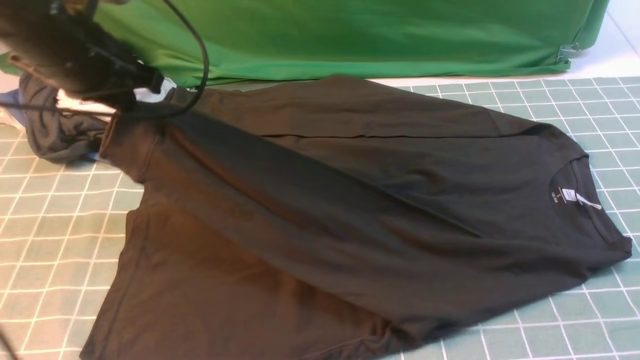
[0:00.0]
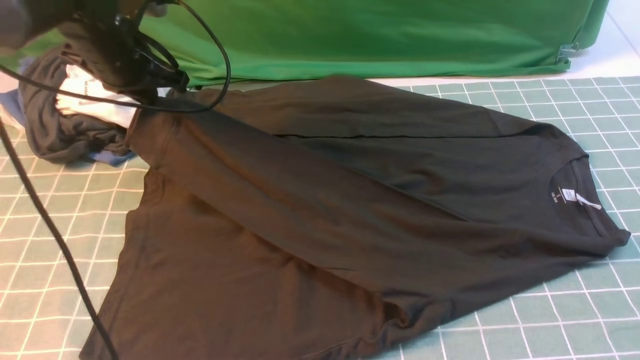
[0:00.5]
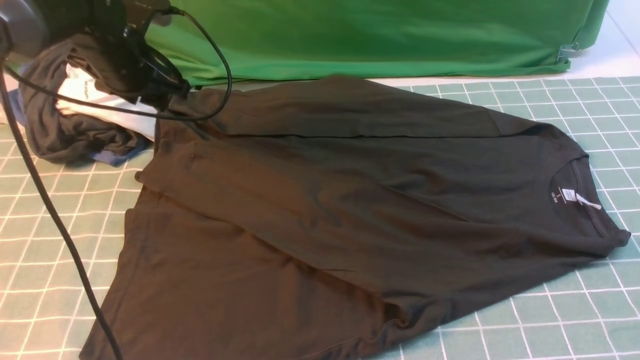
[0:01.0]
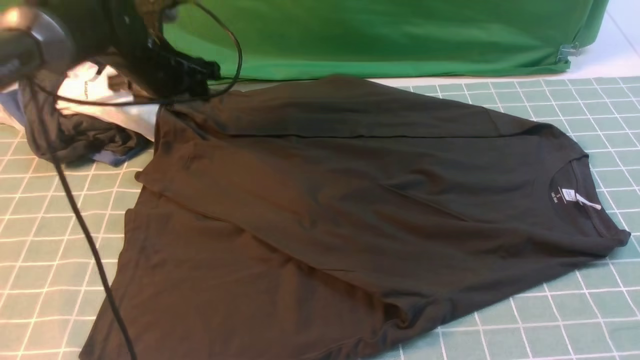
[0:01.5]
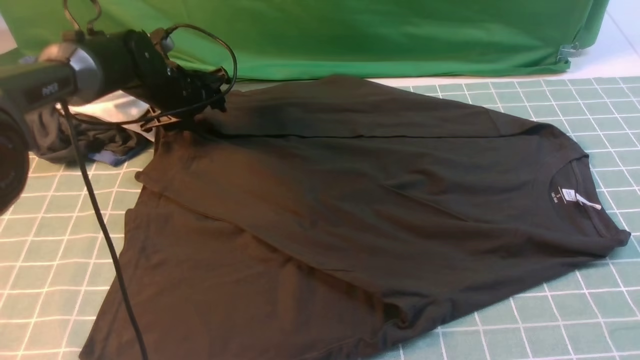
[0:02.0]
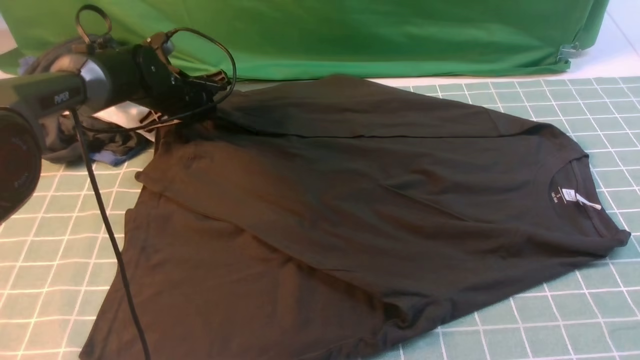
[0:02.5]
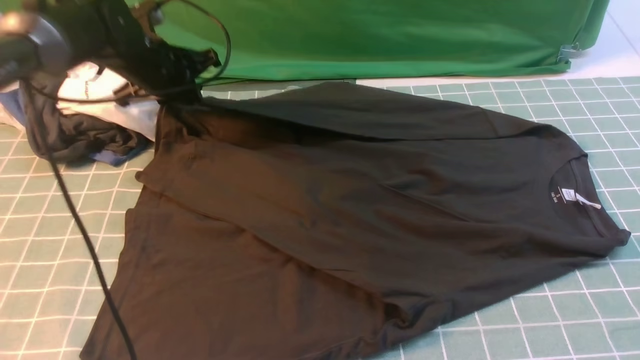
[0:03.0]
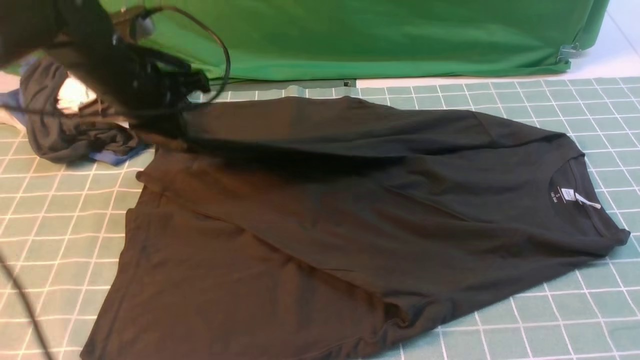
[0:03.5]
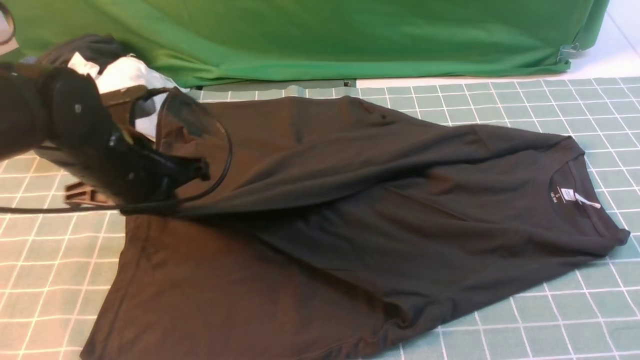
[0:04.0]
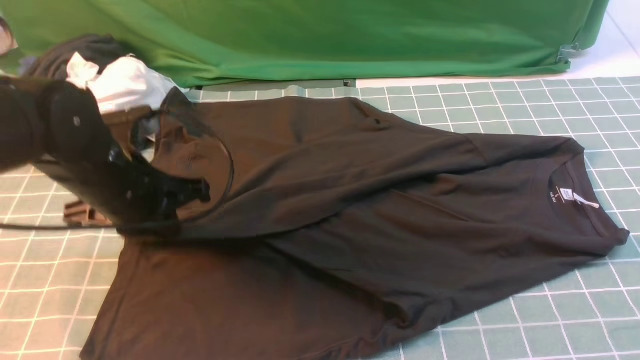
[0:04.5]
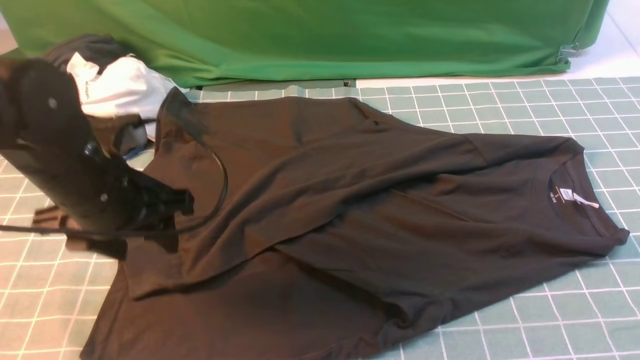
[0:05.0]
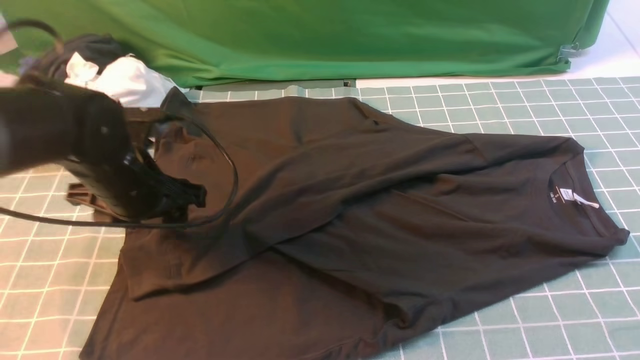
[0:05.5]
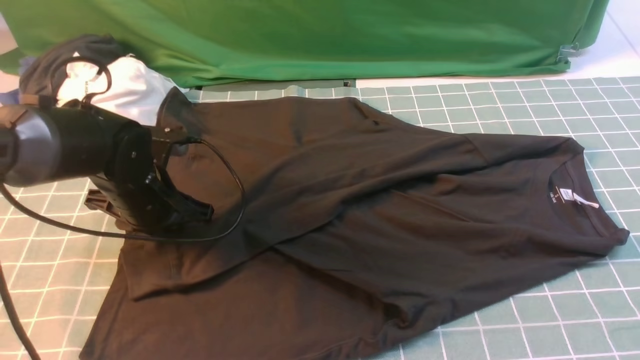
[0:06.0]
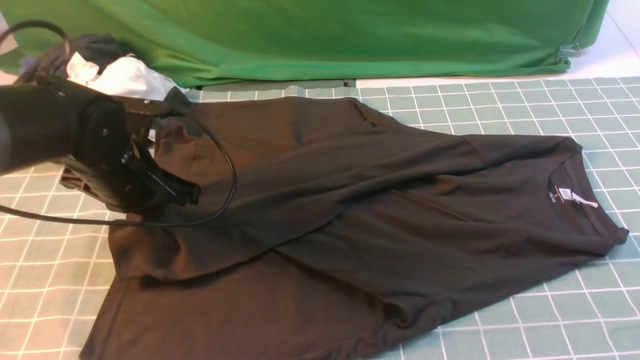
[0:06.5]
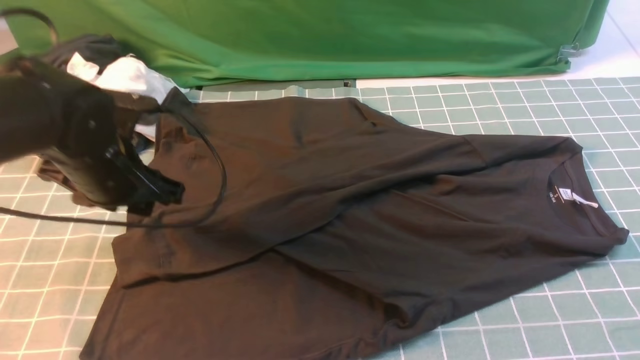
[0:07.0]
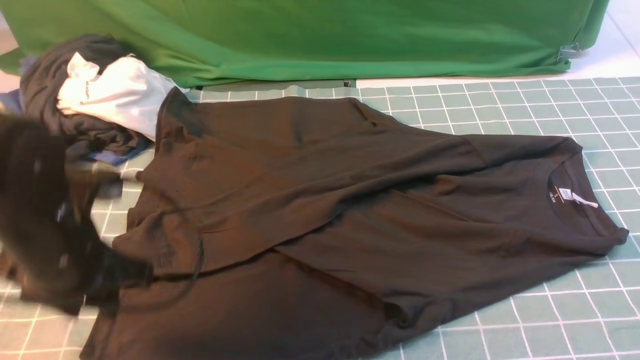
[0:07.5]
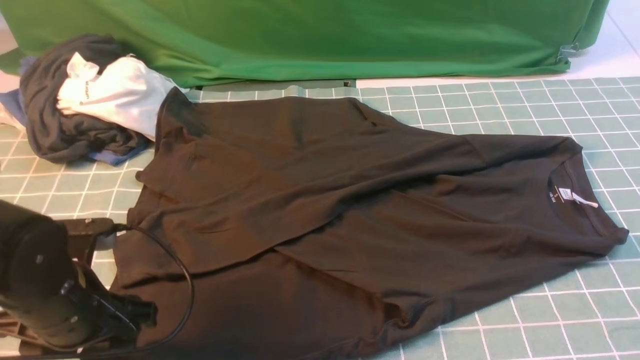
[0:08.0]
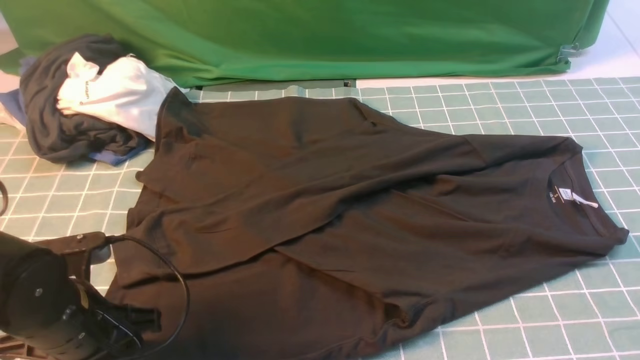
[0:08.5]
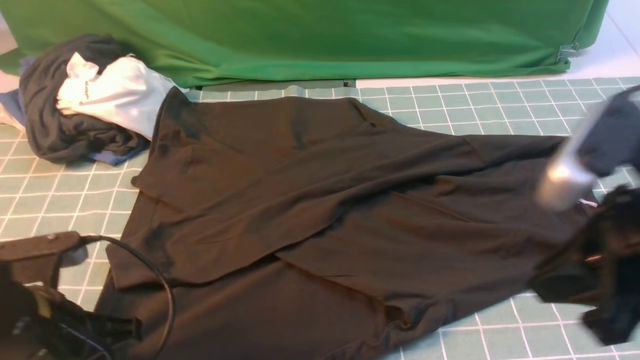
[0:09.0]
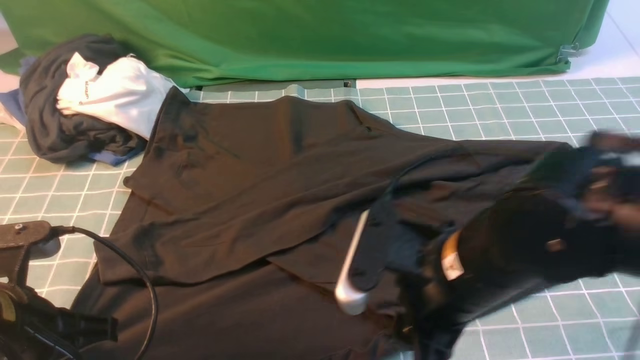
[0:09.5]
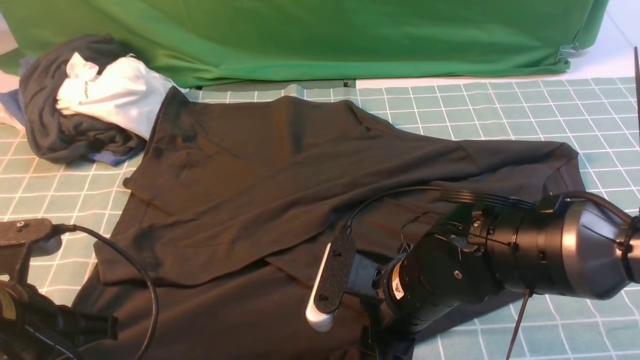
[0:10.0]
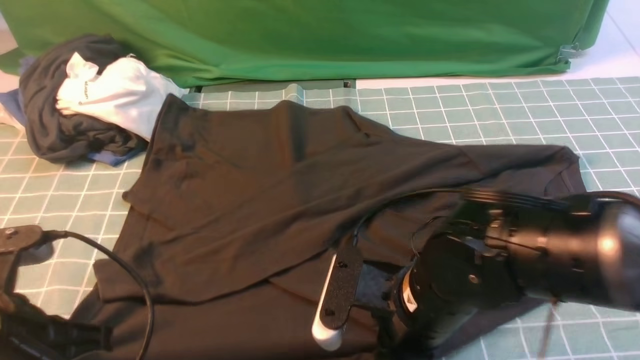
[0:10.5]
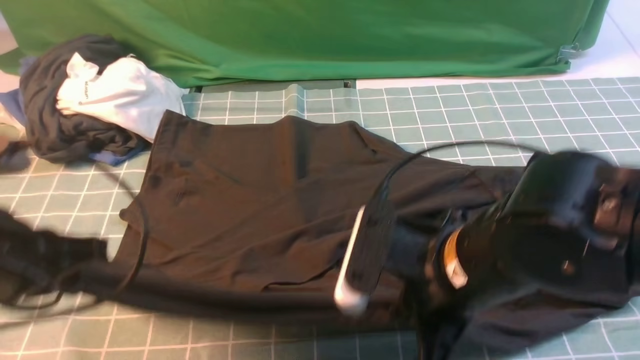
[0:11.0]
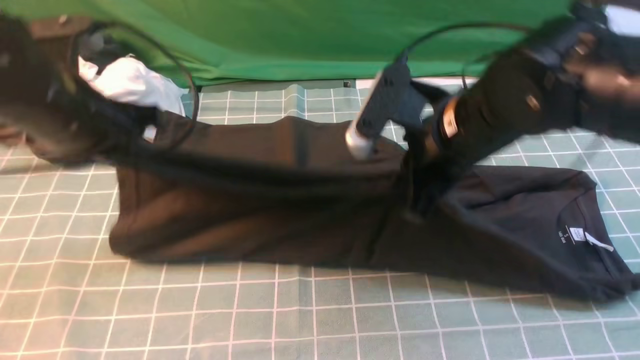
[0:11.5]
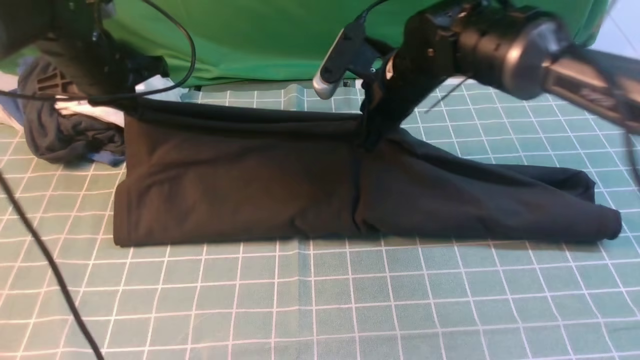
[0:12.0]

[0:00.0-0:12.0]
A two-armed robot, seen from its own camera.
Step, 0:00.0 to 0:01.0: use the left arm to drag and place the cuff at the centered position on the left edge of the fabric.
Step, 0:01.5 to 0:02.5: use the left arm to clamp the cuff farthest from it.
Step, 0:03.0 to 0:07.0: use the left arm to drag and drop the cuff onto the cuff closest to the left arm.
Step, 0:07.5 to 0:10.5: use both arms simultaneously to clamp the lower edge of the clothing fabric.
0:00.0 to 0:02.0: The left gripper goes some 20 cm downward and forward, and opens up.
0:02.0 to 0:04.0: The left gripper is displaced backward by some 20 cm, and closes up.
0:04.0 to 0:06.0: The left gripper moves downward, roughly 5 cm, and opens up.
0:06.0 to 0:08.0: The left gripper is displaced backward by some 15 cm, and opens up.
0:08.0 to 0:10.0: The left gripper shifts roughly 5 cm upward, and closes its fingers; the right gripper goes roughly 30 cm downward and to the left.
0:10.0 to 0:12.0: Both grippers travel together forward, roughly 25 cm. The right gripper closes its fingers.

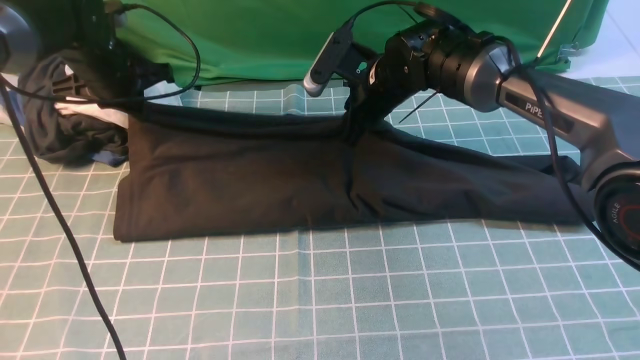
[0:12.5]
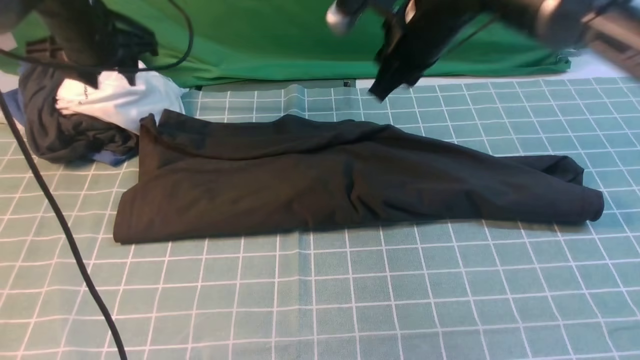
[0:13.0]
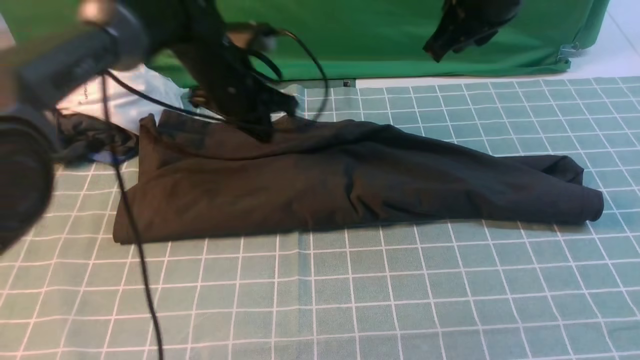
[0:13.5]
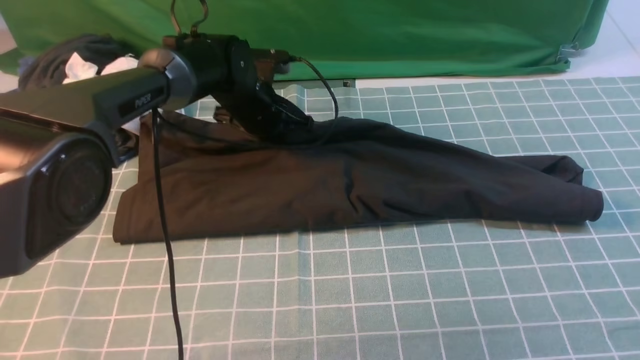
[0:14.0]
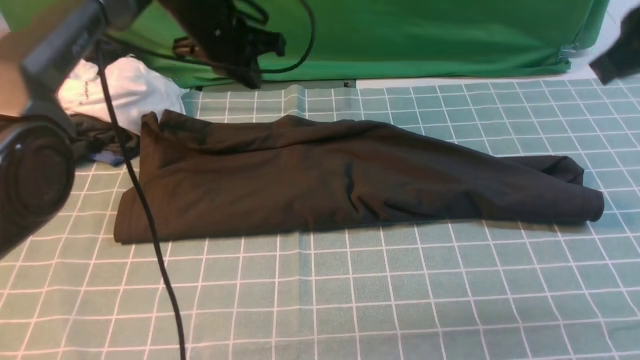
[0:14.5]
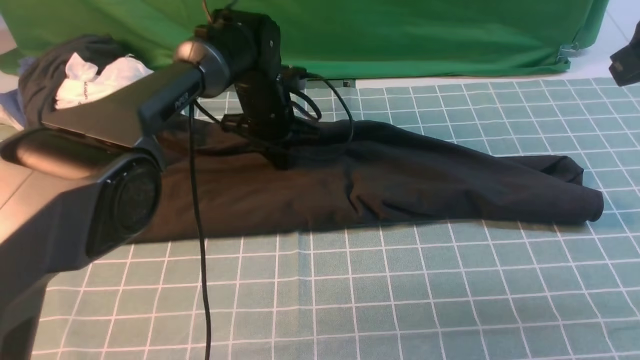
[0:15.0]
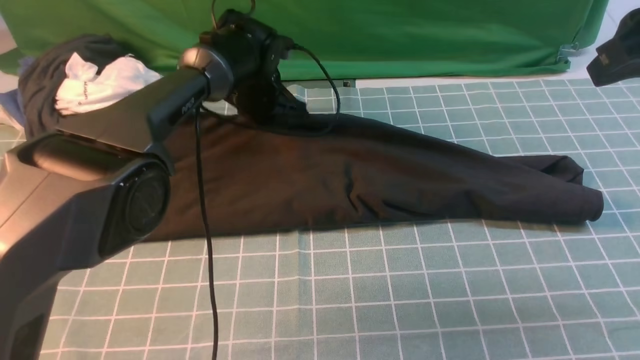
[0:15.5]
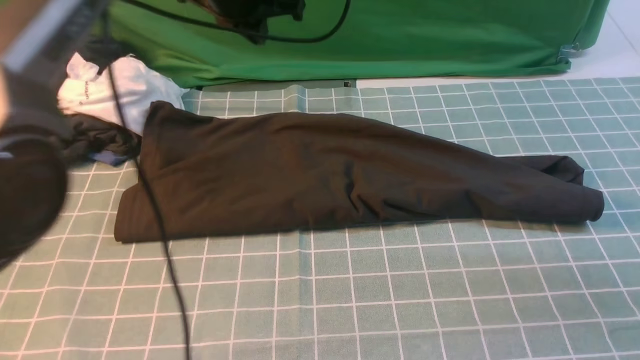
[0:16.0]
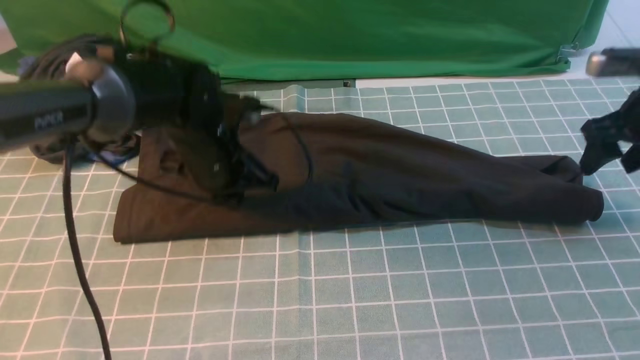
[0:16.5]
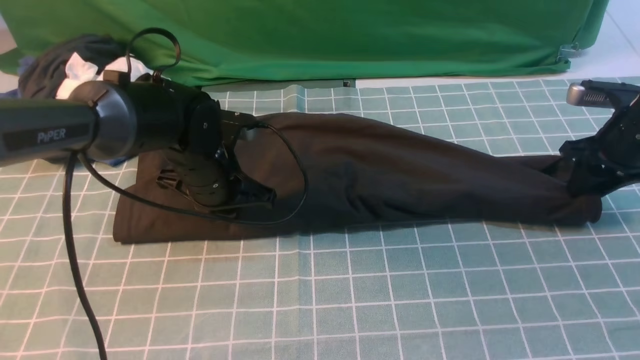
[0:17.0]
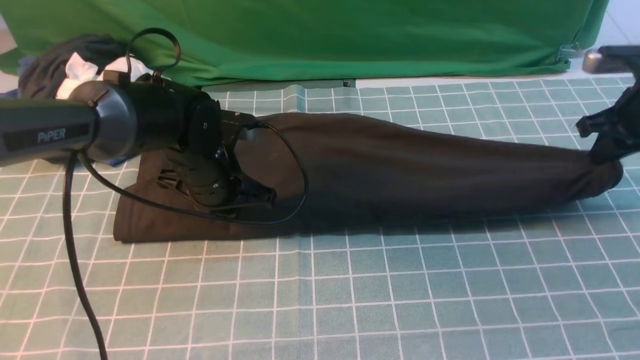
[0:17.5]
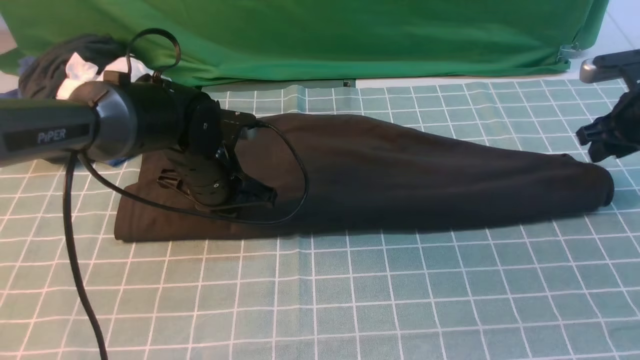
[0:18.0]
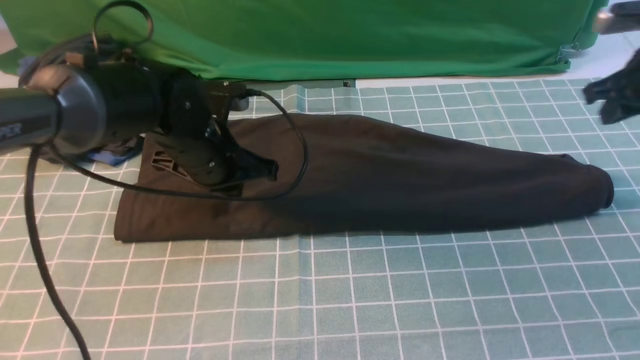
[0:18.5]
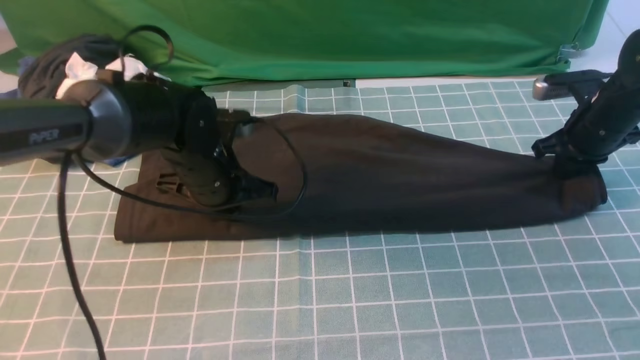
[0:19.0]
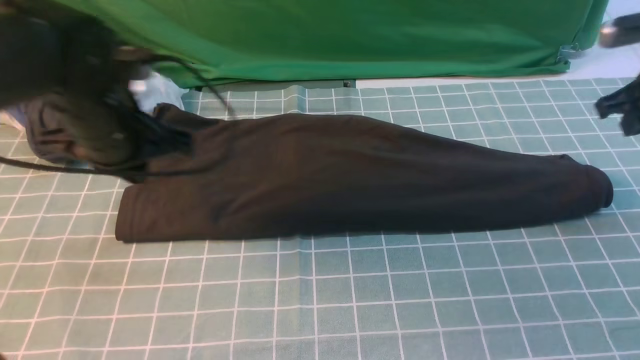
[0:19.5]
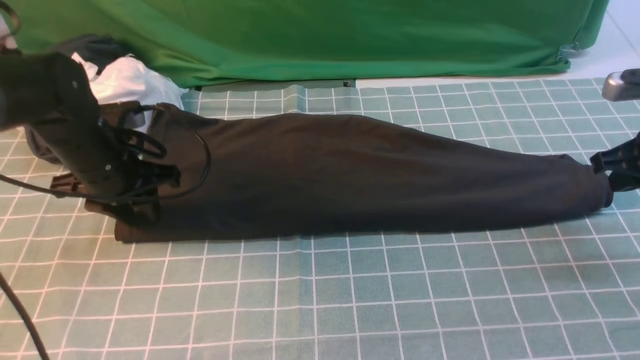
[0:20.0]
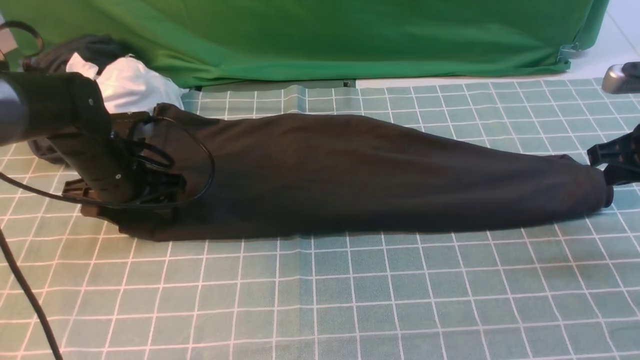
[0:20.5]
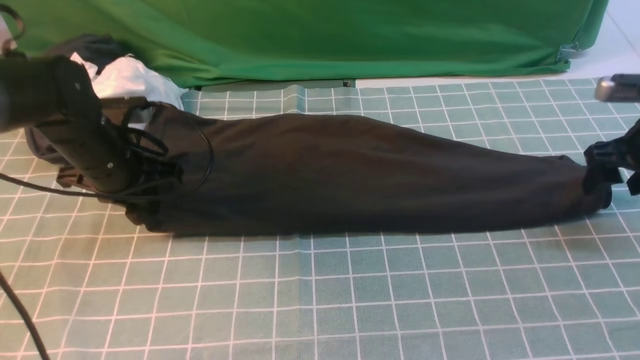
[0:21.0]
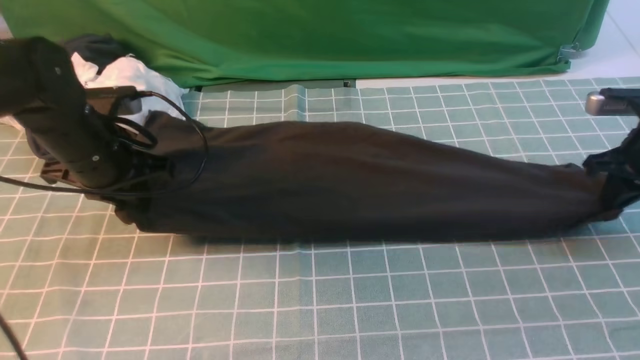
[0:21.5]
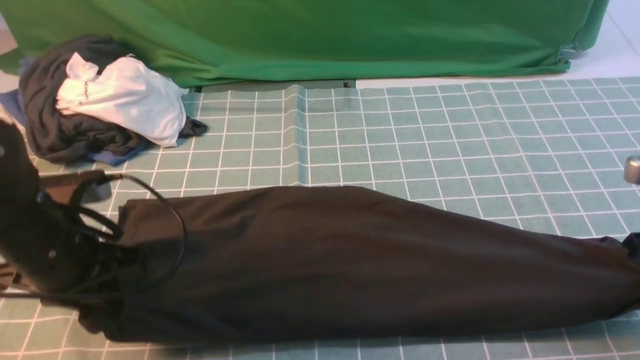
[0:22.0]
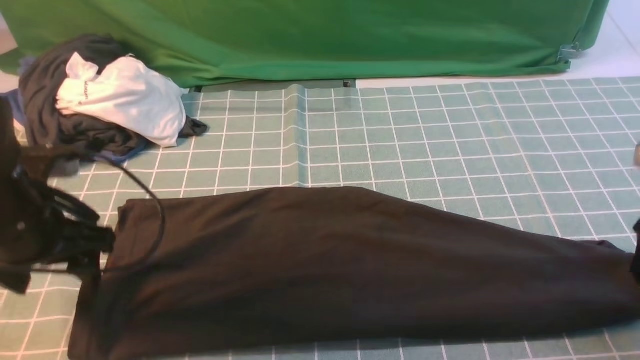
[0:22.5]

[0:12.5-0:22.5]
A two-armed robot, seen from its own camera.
0:12.5 to 0:14.5: The left gripper travels to the right by some 15 cm. Meanwhile the right gripper is displaced upward, to the right and backward by approximately 30 cm, and closes up.
0:14.5 to 0:16.5: The right gripper travels downward, forward and to the right by approximately 25 cm, and opens its fingers. Meanwhile the left gripper goes up and down, about 15 cm each way, reversing 2 times.
0:16.5 to 0:18.5: The right gripper closes.
0:18.5 to 0:20.5: The right gripper is displaced backward by some 10 cm. Meanwhile the left gripper goes approximately 10 cm to the left, and opens up.
0:20.5 to 0:22.5: The right gripper is displaced backward by roughly 5 cm, and opens. The left gripper goes roughly 15 cm backward and upward, and closes, then opens again.
